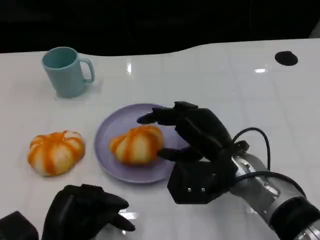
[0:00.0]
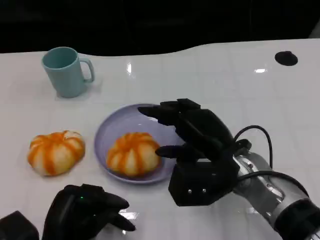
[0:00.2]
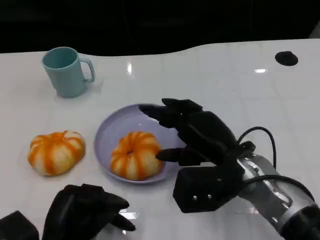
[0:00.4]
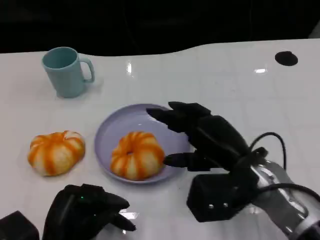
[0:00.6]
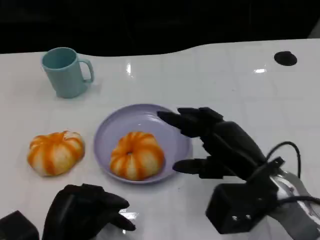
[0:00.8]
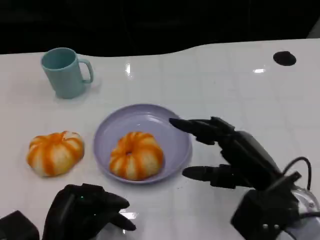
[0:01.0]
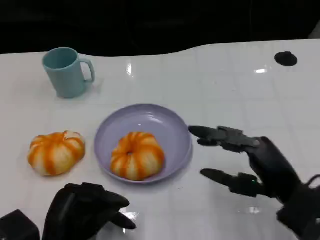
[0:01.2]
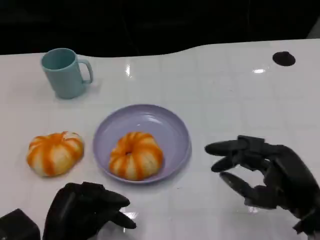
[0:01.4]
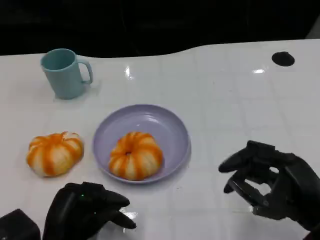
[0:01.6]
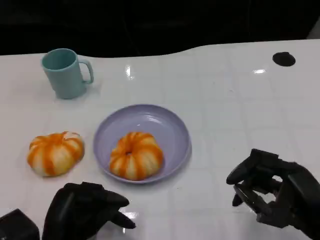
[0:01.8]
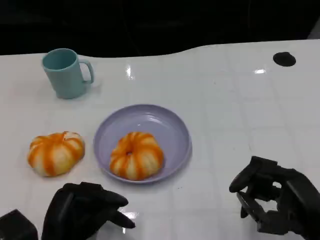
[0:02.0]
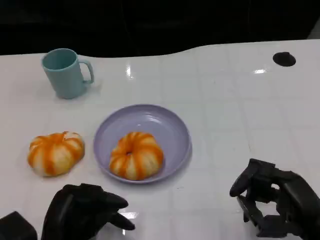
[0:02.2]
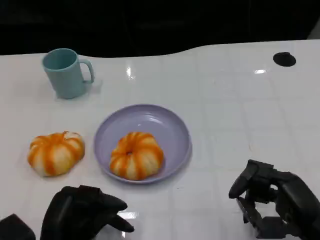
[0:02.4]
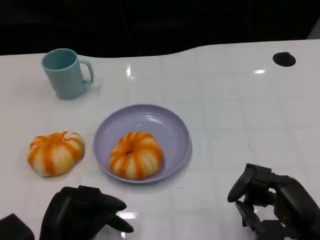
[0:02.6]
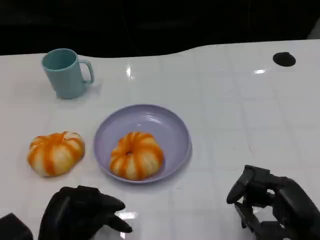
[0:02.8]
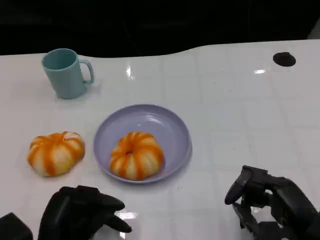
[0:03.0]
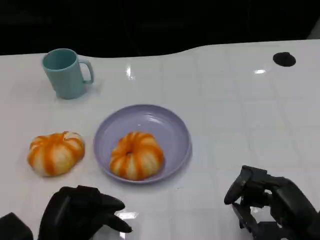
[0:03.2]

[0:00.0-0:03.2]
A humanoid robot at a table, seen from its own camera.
Task of the whole recording: Grasp the bread from the table and place it into the plate.
0:00.0 to 0:01.6: The right hand moves to the right and backward, about 15 cm.
0:01.6 to 0:03.2: The hands make only small movements.

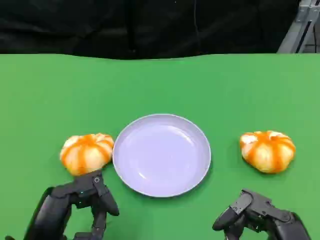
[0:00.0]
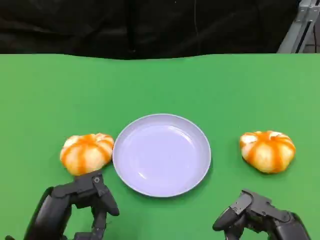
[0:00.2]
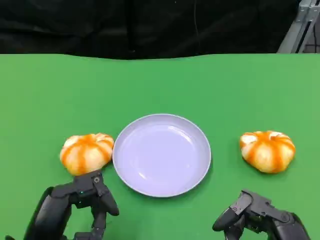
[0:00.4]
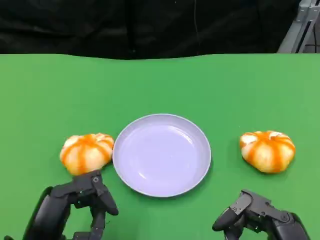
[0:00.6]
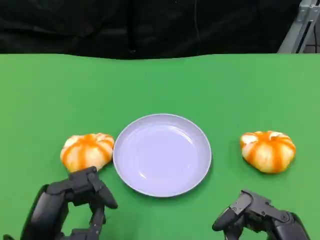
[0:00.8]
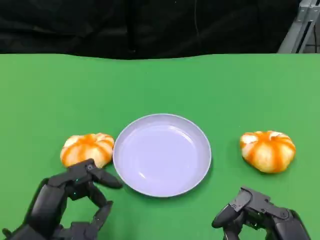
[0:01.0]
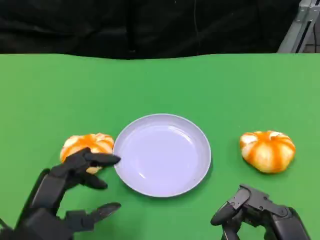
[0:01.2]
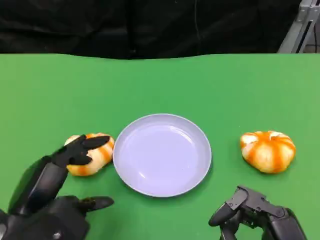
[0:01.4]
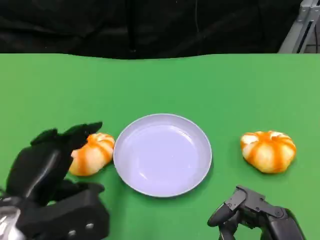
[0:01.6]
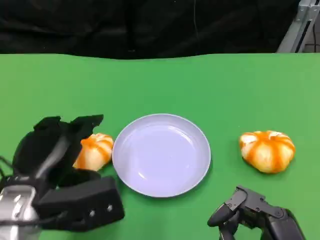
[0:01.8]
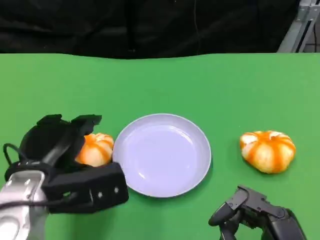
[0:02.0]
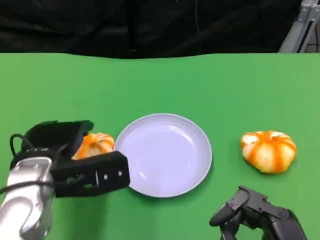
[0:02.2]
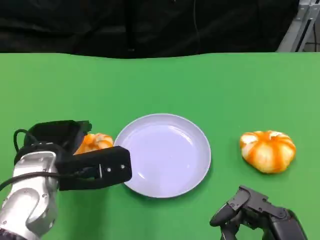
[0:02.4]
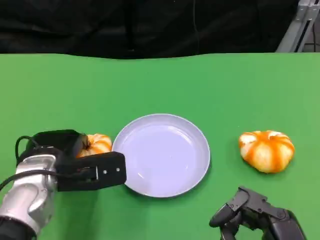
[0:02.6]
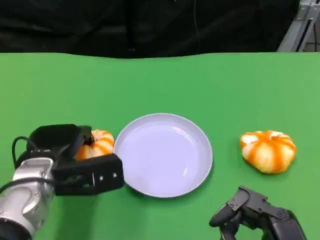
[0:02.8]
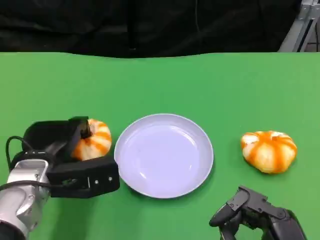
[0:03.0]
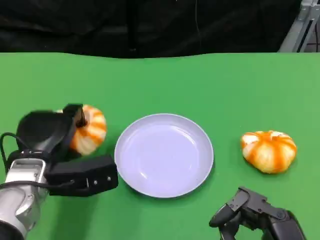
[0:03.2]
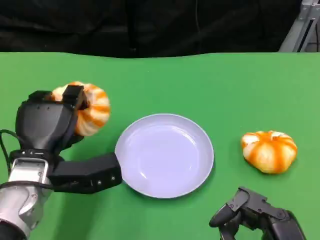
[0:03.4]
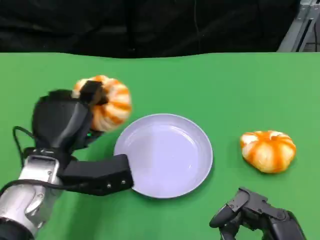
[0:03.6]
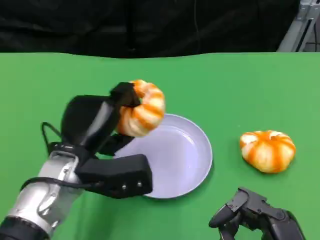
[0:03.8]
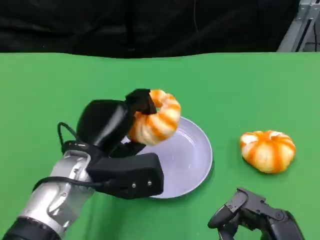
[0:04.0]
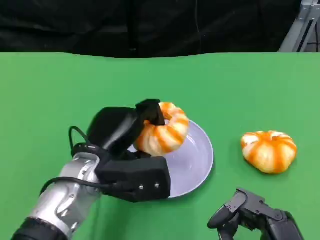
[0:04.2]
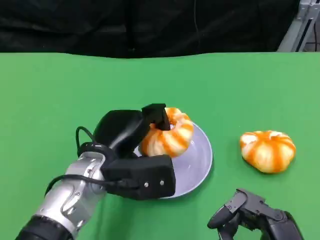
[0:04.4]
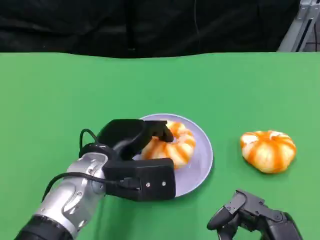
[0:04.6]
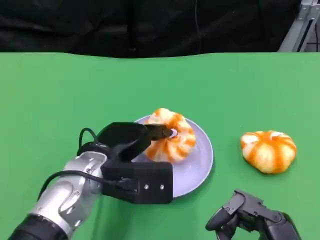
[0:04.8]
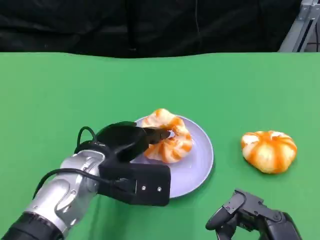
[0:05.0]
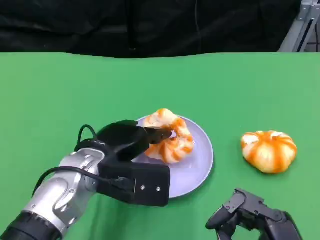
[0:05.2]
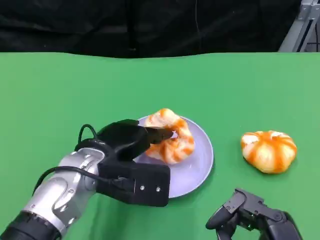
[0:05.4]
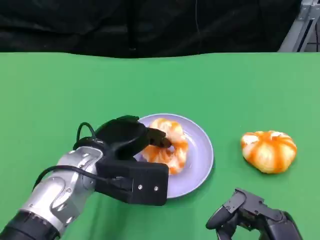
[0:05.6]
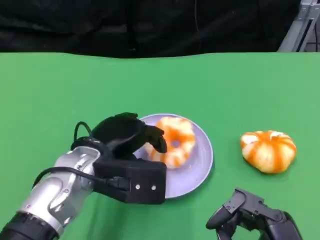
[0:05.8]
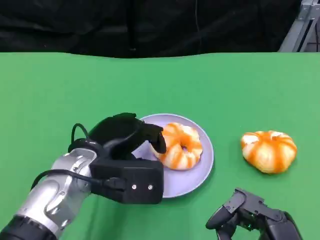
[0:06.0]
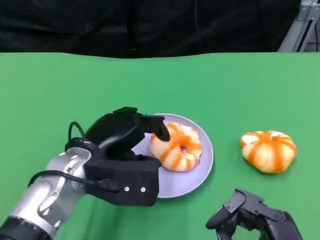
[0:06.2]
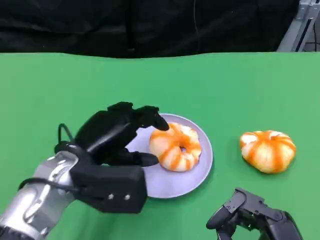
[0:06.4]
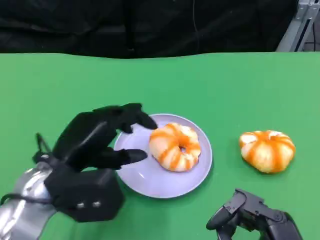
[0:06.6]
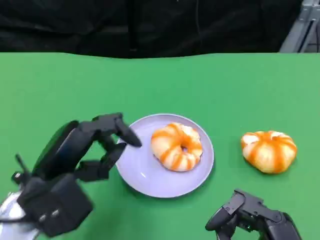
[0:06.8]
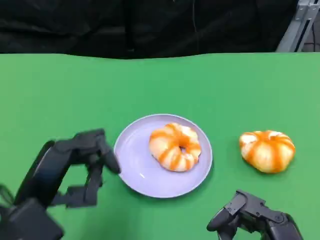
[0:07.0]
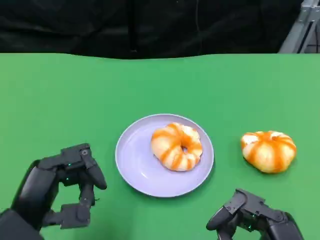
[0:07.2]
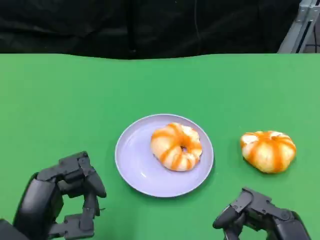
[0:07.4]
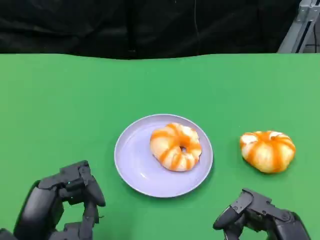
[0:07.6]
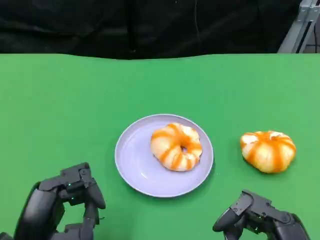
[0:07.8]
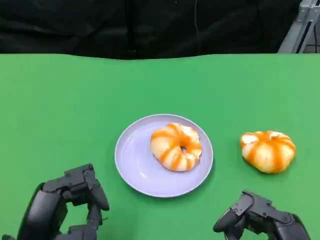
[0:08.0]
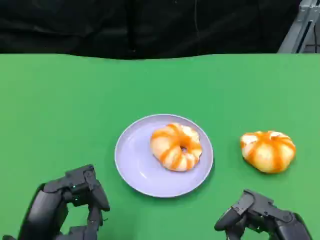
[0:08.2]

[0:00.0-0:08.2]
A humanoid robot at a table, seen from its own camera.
Task of the whole recording: Grasp the bread from the table and place it into the plate.
0:00.0 to 0:01.6: The left hand is displaced forward by approximately 5 cm.
0:01.6 to 0:03.2: The left hand moves forward, approximately 10 cm.
0:03.2 to 0:05.0: The left hand travels to the right by approximately 10 cm.
0:05.0 to 0:06.6: The left hand shifts roughly 5 cm to the left.
0:06.6 to 0:08.2: The left hand moves backward, roughly 10 cm.

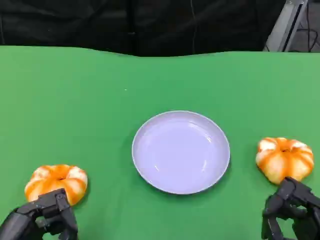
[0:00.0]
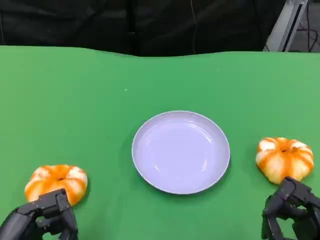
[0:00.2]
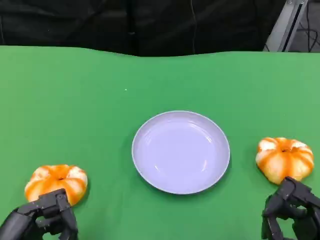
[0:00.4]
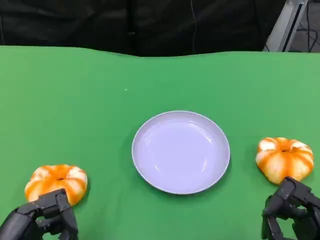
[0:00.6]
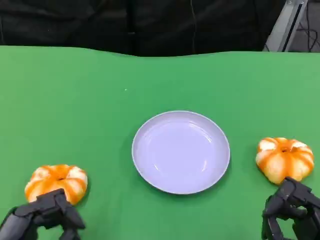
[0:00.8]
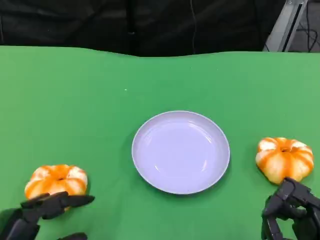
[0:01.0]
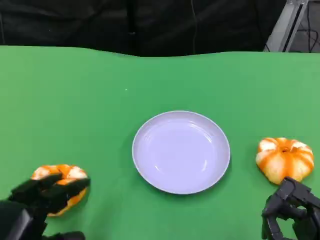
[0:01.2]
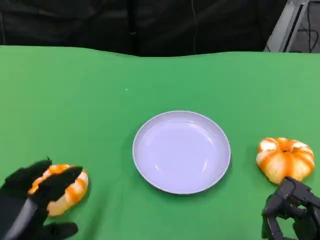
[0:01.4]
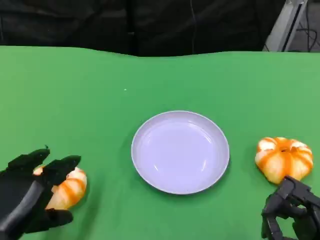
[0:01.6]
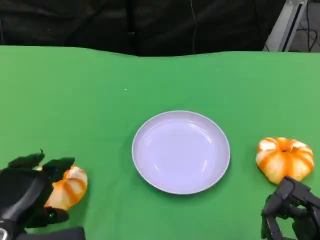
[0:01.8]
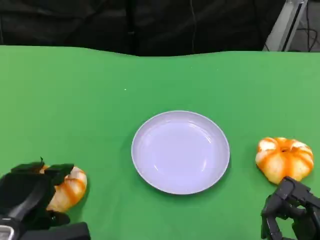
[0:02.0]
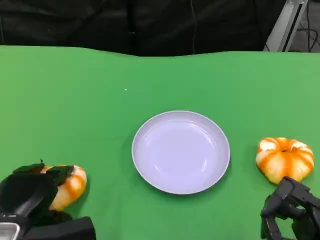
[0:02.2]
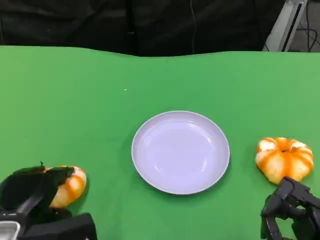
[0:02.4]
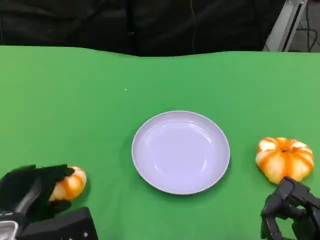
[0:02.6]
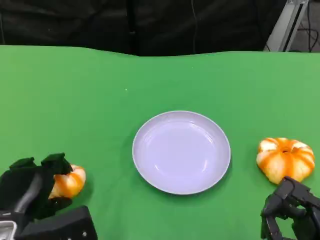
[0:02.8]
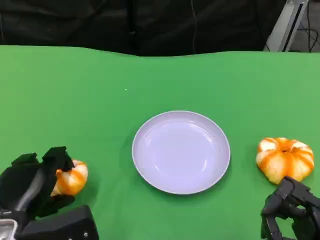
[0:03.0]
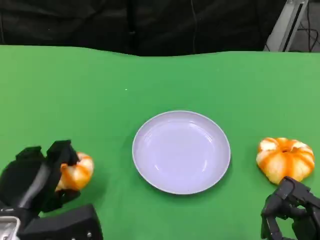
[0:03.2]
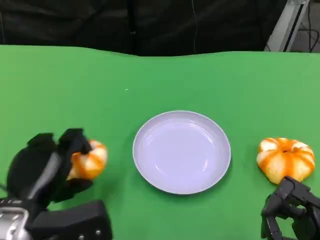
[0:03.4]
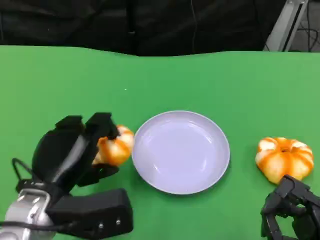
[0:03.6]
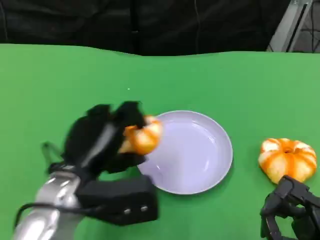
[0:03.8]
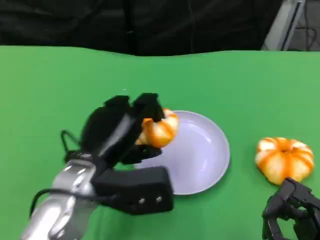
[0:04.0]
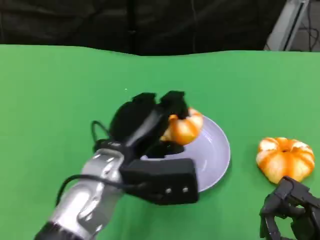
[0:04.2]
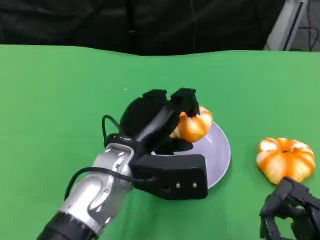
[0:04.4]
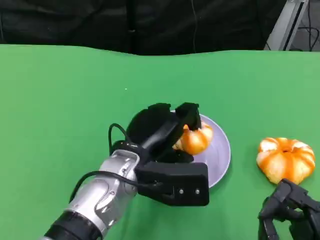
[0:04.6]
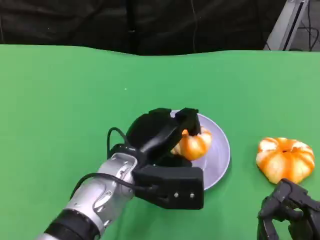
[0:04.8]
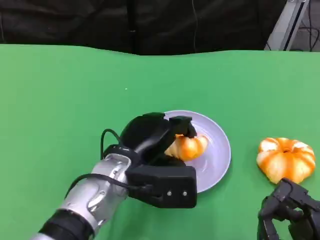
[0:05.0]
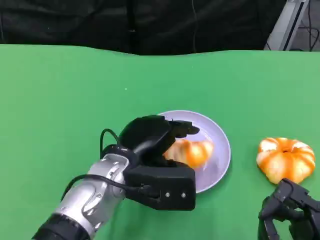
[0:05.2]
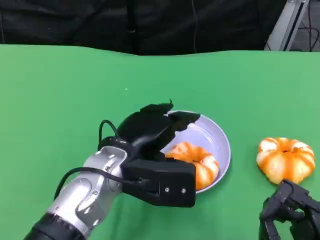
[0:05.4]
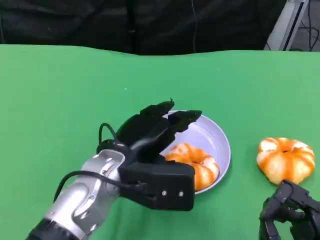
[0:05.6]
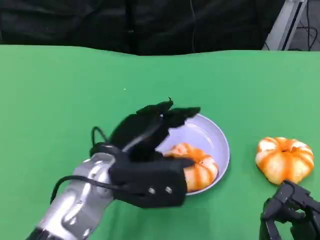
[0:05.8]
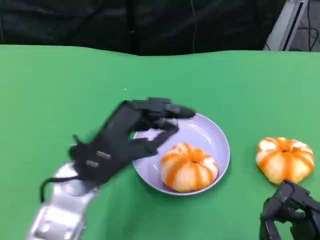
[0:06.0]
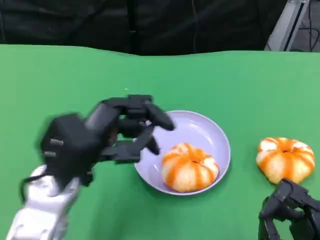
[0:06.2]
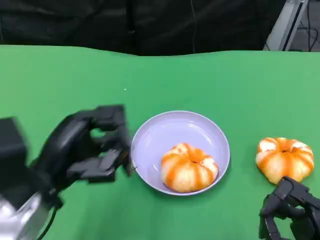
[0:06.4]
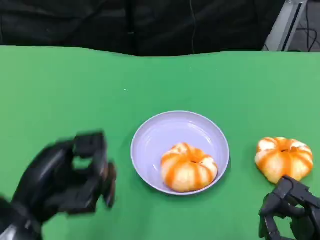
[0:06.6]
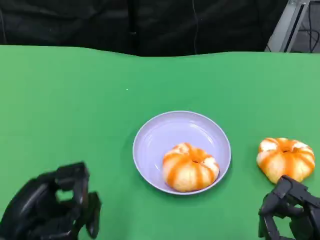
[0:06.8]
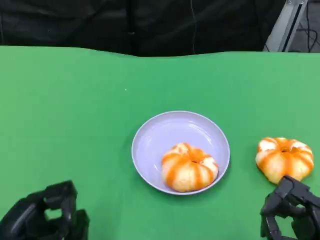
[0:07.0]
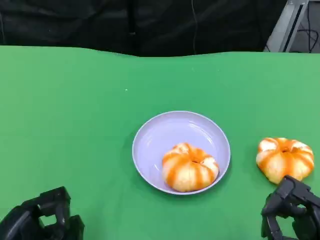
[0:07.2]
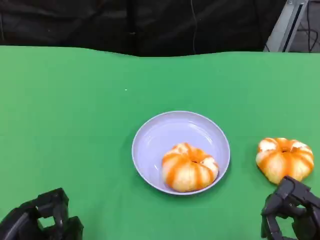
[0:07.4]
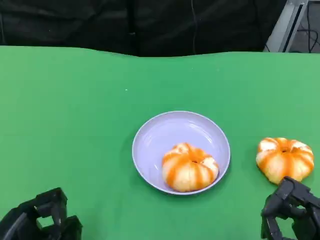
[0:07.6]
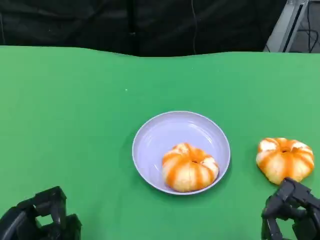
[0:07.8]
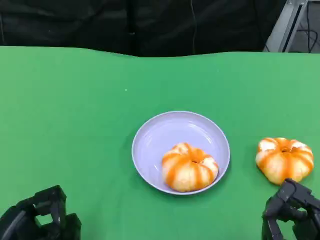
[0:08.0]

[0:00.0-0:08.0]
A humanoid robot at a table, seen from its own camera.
Task of the whole recording: Grasp the bread from the table and place it into the plate.
0:00.0 to 0:01.6: The left hand ends up approximately 5 cm from where it was.
0:01.6 to 0:03.2: The hands stay close to where they were, moving slightly.
0:03.2 to 0:04.8: The left hand heads to the right and forward, covering roughly 15 cm.
0:04.8 to 0:06.4: The left hand travels to the left and backward by roughly 15 cm.
0:06.4 to 0:08.0: The left hand moves downward, backward and to the left, approximately 15 cm.

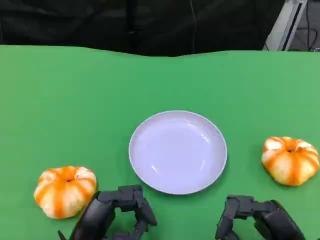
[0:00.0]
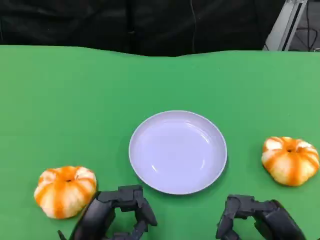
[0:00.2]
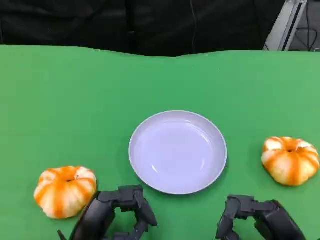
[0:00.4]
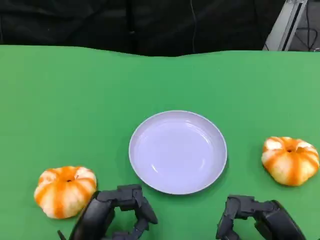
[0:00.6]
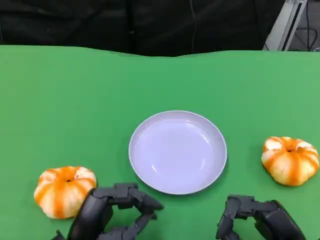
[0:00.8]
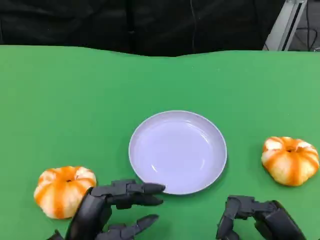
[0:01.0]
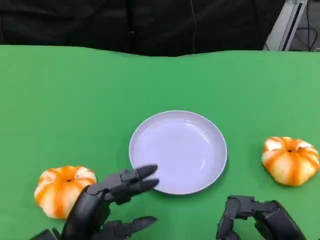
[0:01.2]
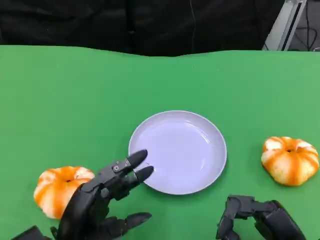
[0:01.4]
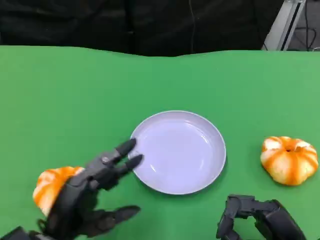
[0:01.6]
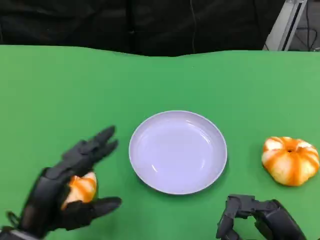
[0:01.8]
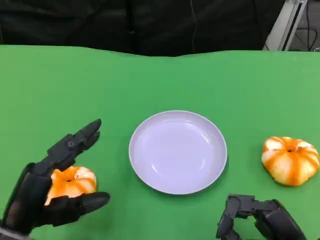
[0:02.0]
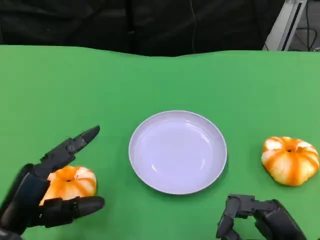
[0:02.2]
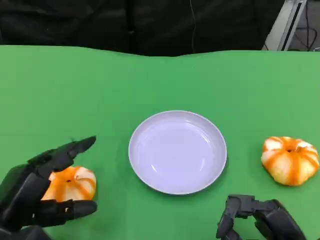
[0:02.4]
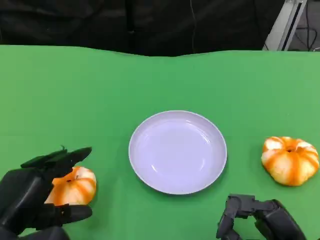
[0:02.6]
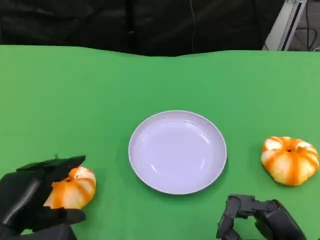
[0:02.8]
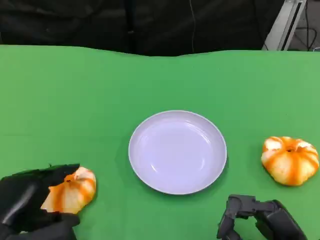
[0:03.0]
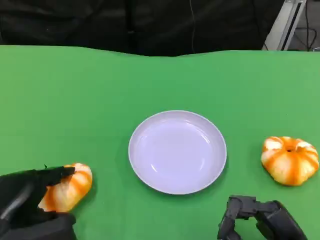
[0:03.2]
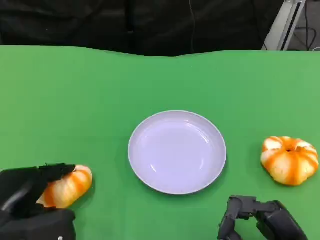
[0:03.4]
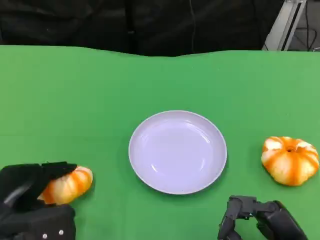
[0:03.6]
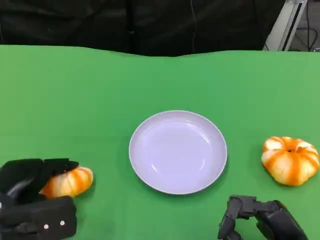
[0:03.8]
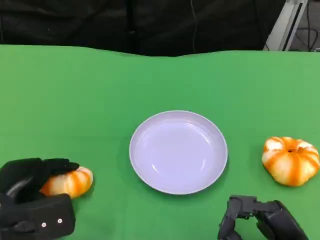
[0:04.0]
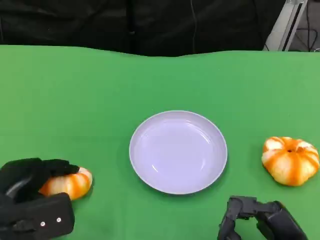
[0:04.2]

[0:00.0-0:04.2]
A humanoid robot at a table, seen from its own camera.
Task of the whole recording: Grasp the bread from the table and place it into the plate.
0:00.0 to 0:01.4: The hands stay close to where they were, moving slightly.
0:01.4 to 0:02.8: The left hand shifts some 10 cm to the left.
0:02.8 to 0:04.2: There are only small adjustments of the hands.
